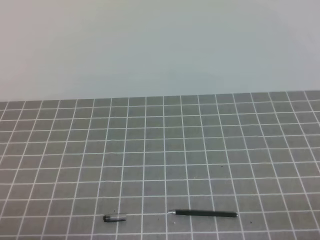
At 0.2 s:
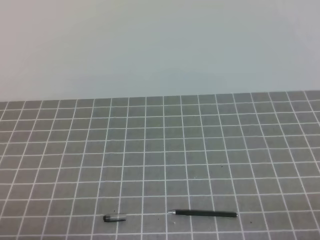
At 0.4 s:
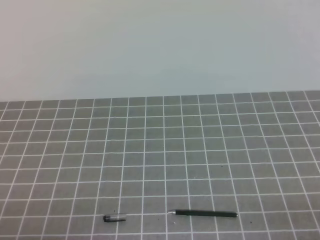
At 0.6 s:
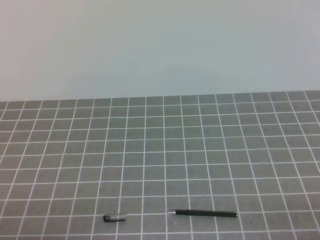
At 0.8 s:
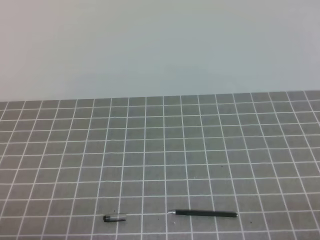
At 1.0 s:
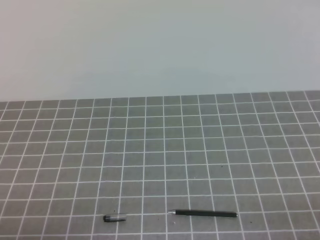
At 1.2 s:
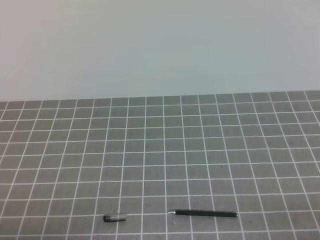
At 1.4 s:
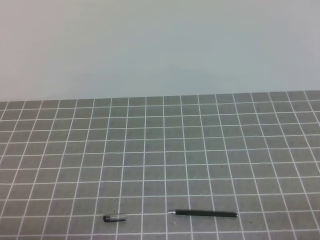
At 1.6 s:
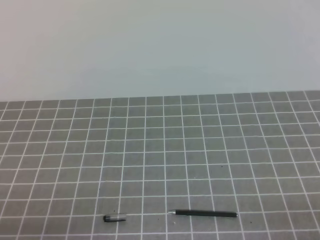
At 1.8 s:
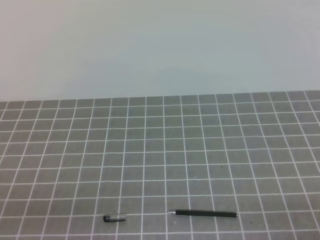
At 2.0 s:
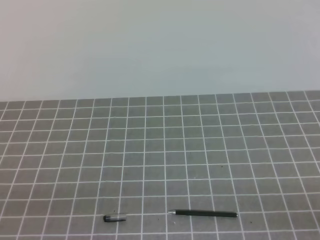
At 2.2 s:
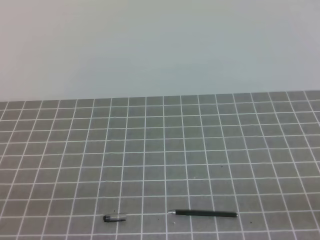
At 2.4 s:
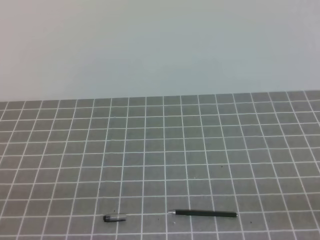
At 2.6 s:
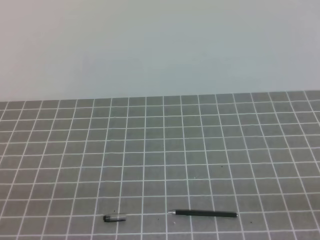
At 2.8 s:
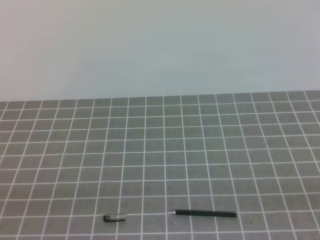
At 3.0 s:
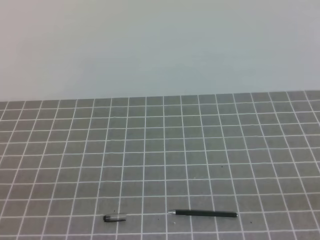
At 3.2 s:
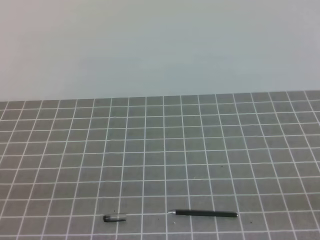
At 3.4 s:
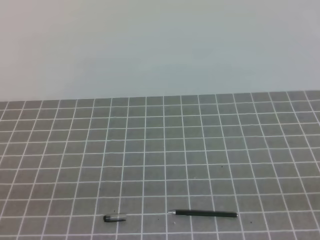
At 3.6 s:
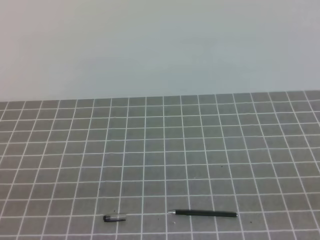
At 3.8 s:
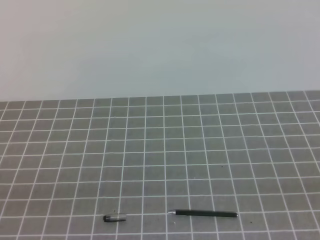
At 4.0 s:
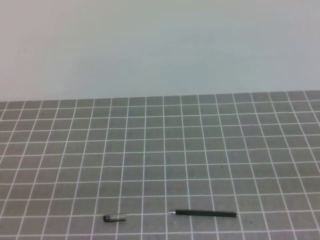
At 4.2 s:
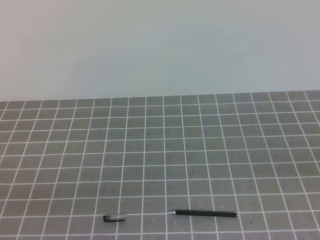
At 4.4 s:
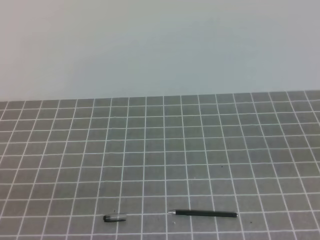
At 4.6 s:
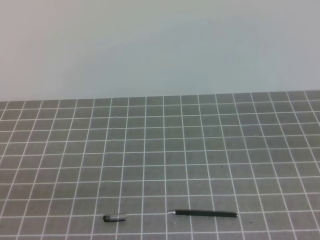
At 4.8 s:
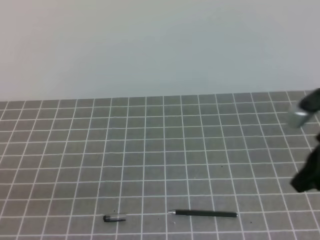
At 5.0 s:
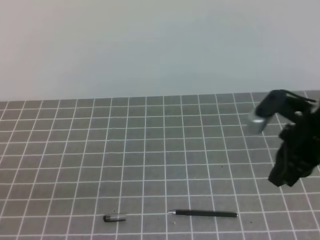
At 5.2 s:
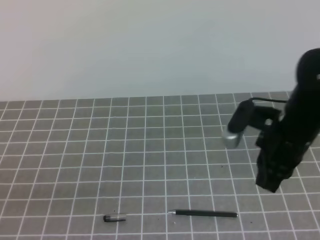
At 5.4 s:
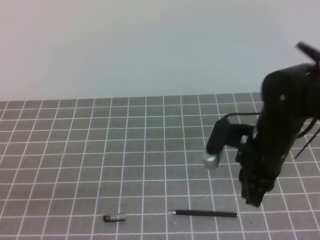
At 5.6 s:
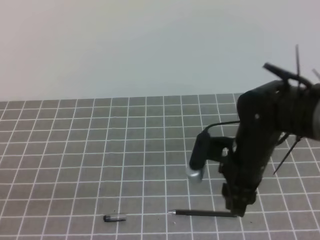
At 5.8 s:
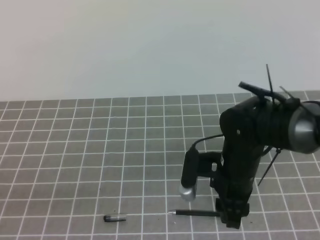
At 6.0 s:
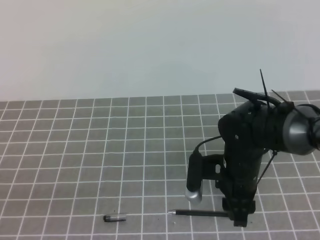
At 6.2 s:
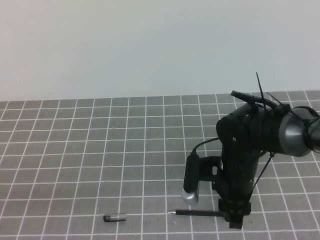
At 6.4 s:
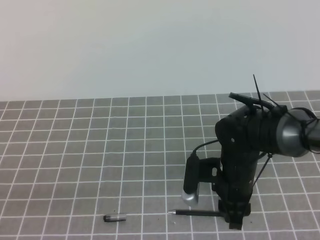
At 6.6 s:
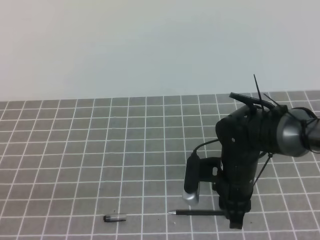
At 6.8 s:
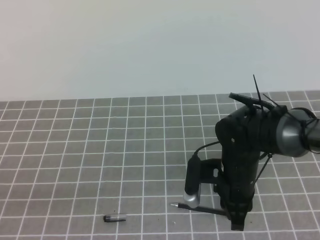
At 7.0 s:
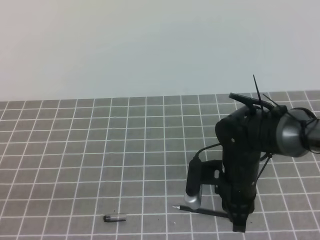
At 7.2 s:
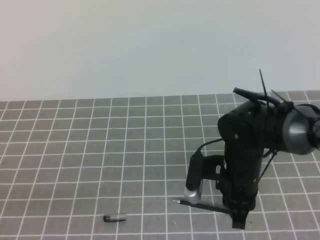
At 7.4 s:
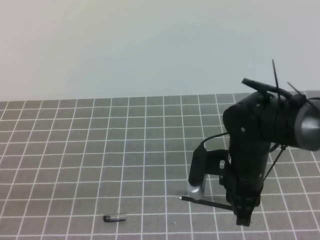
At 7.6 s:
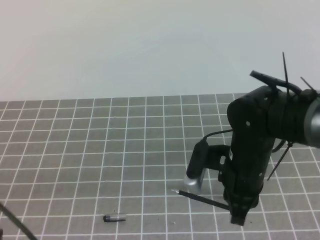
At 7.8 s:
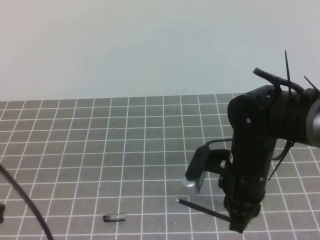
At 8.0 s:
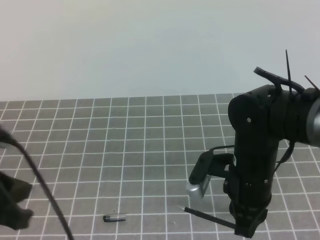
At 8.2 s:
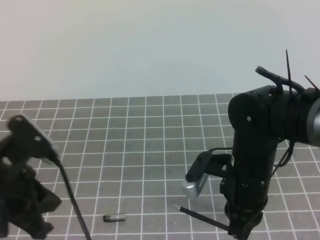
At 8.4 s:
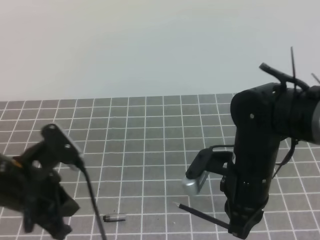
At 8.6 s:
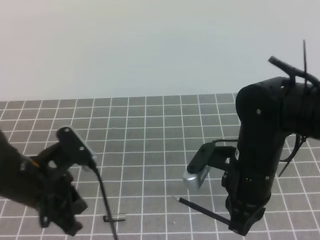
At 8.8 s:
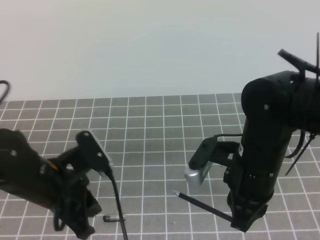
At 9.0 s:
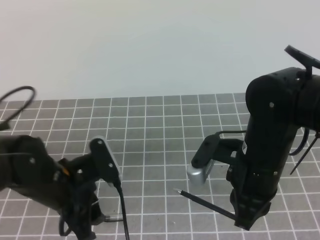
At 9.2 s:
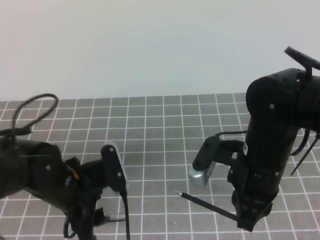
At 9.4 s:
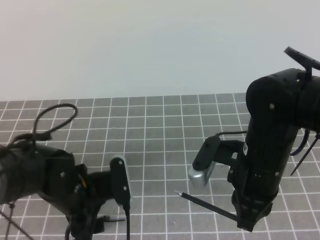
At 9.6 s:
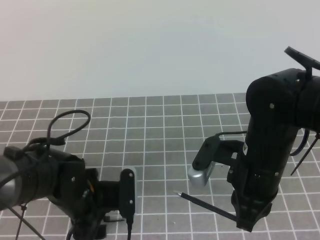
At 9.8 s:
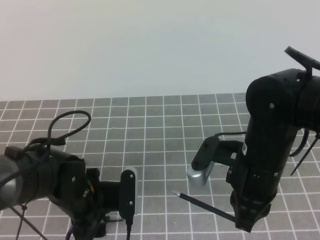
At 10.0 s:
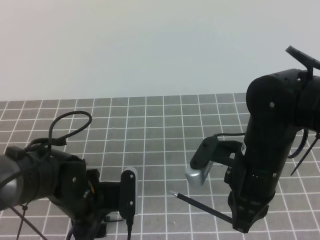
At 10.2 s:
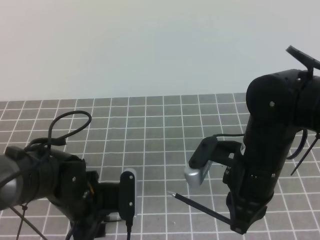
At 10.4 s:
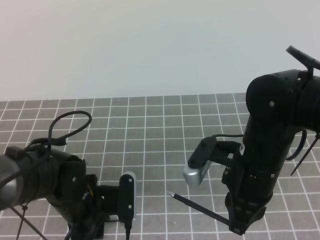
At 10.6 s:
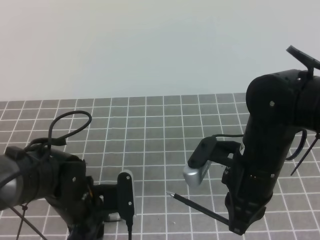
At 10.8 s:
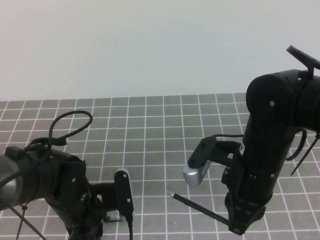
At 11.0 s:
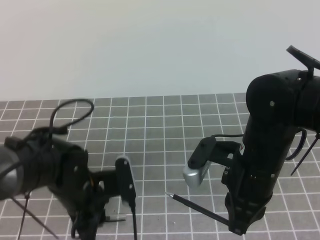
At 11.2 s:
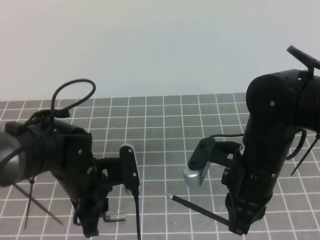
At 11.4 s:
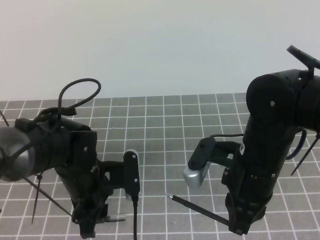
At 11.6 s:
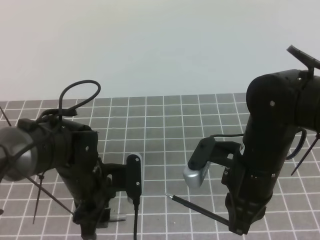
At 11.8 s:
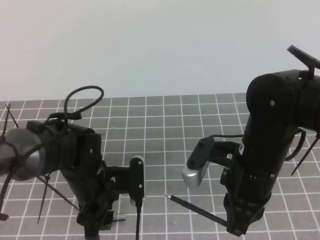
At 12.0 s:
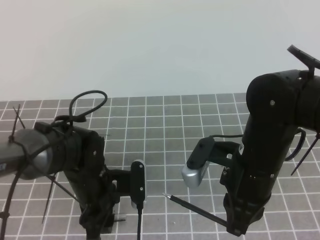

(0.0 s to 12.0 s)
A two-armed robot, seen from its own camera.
Task of the whole recording: on the grey tablecloth, hold the pen cap in one hand and the pen in the other, then cover the pen cap.
4.4 s - 6.0 s: The right gripper heads to the left, forward and downward, covering approximately 30 cm, and opens its fingers.
6.0 s - 7.6 s: The right gripper closes.
7.6 s - 9.0 s: The right gripper ends up roughly 5 cm from where it was. Meanwhile the left gripper heads forward, to the right and downward, covering some 20 cm, and opens up.
9.0 s - 10.4 s: The left gripper heads downward, covering about 5 cm.
10.4 s - 12.0 s: There are only small adjustments of the grippers.

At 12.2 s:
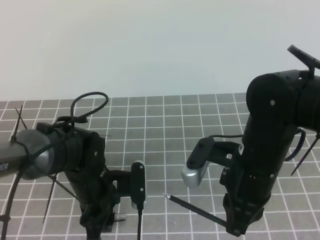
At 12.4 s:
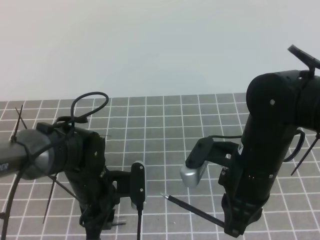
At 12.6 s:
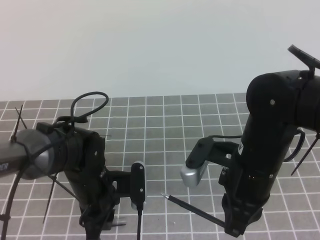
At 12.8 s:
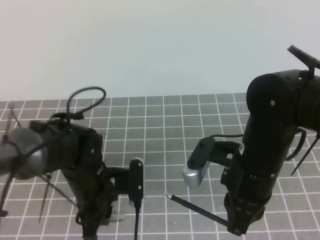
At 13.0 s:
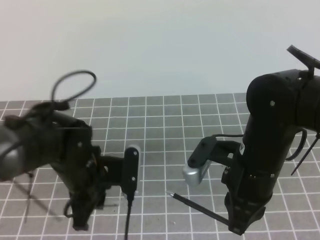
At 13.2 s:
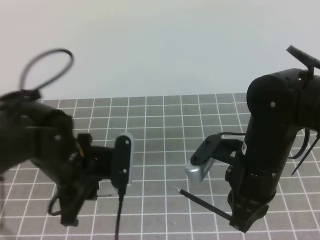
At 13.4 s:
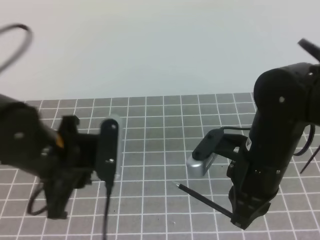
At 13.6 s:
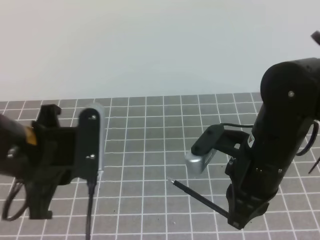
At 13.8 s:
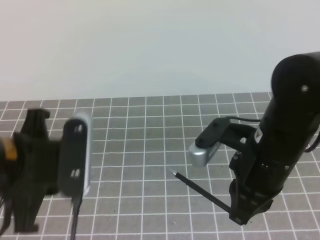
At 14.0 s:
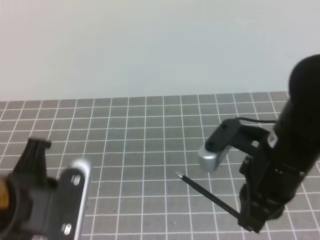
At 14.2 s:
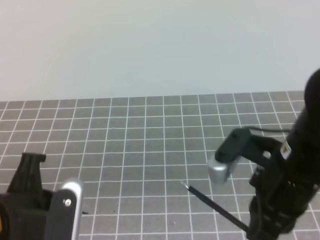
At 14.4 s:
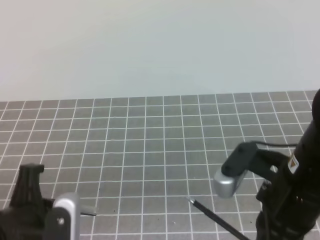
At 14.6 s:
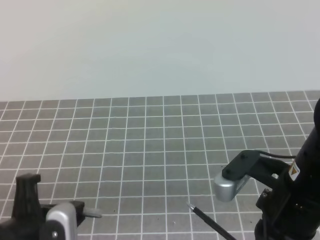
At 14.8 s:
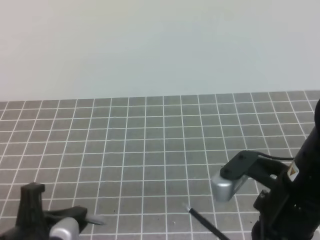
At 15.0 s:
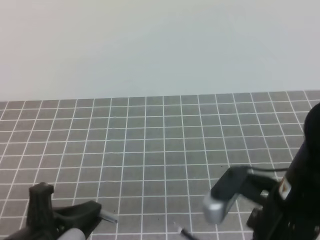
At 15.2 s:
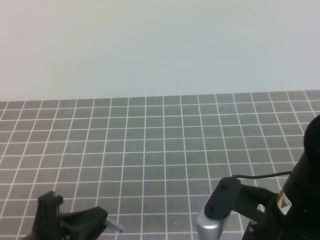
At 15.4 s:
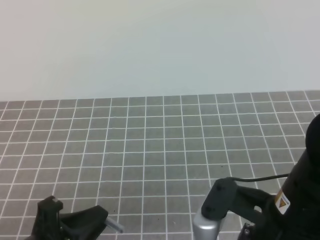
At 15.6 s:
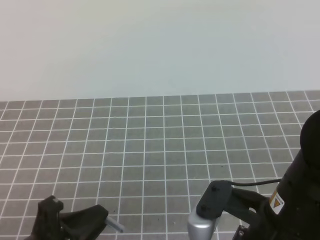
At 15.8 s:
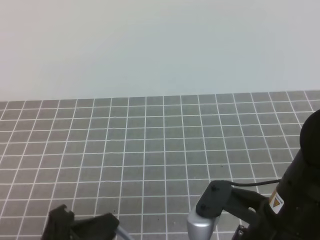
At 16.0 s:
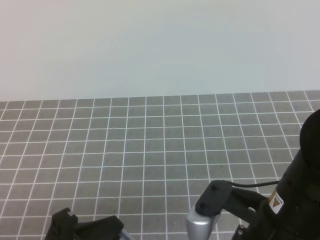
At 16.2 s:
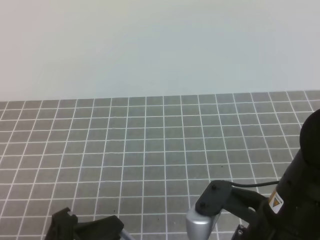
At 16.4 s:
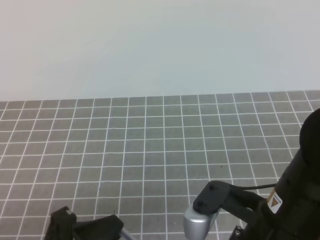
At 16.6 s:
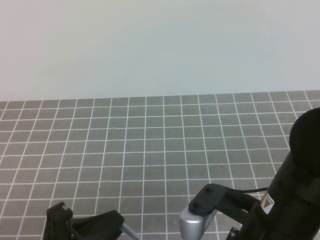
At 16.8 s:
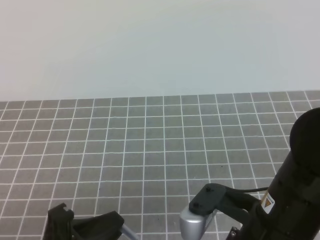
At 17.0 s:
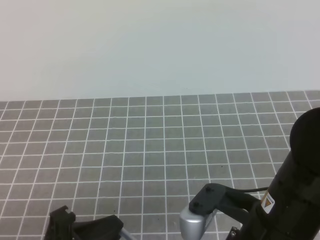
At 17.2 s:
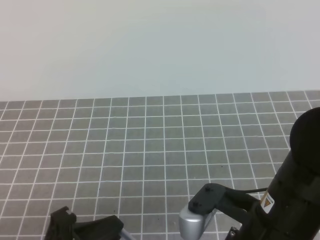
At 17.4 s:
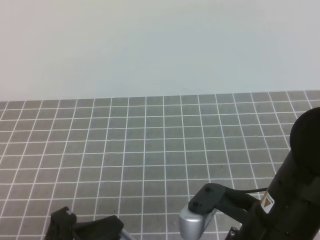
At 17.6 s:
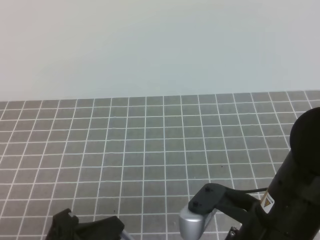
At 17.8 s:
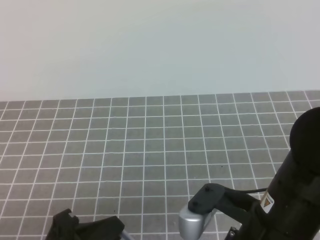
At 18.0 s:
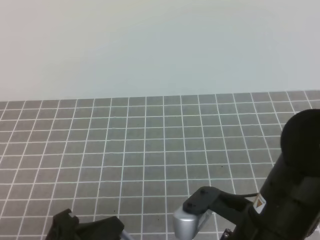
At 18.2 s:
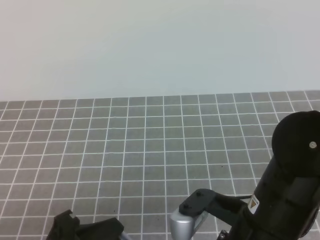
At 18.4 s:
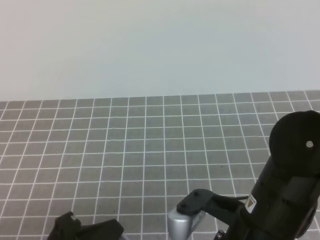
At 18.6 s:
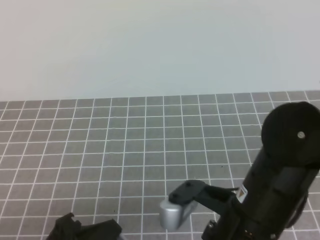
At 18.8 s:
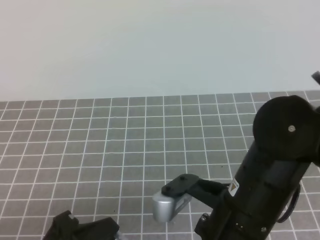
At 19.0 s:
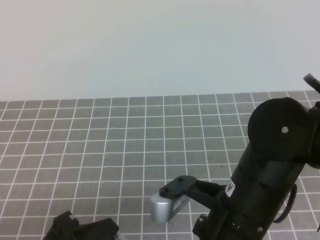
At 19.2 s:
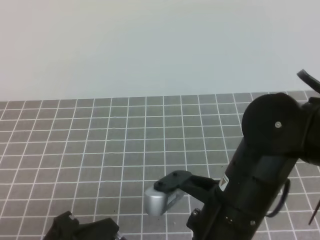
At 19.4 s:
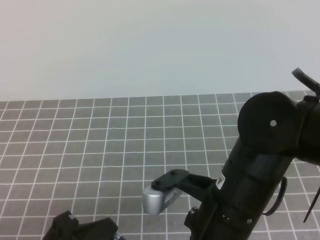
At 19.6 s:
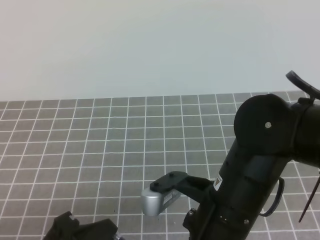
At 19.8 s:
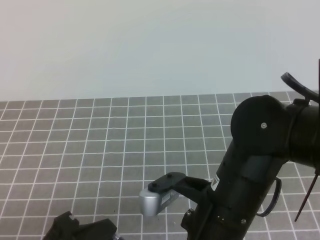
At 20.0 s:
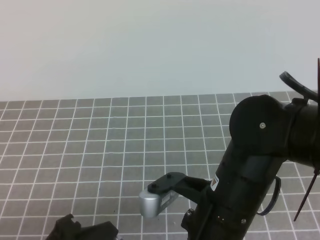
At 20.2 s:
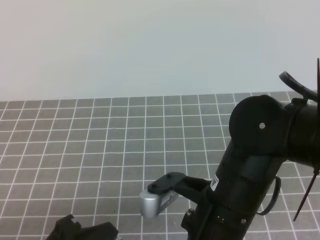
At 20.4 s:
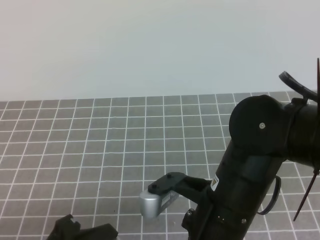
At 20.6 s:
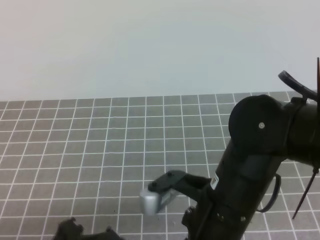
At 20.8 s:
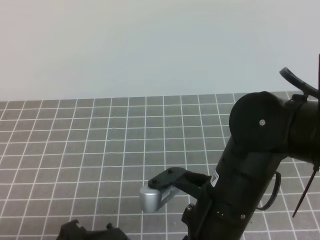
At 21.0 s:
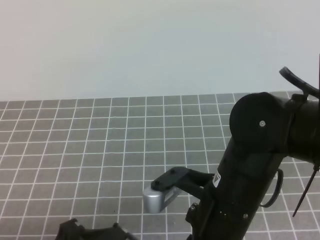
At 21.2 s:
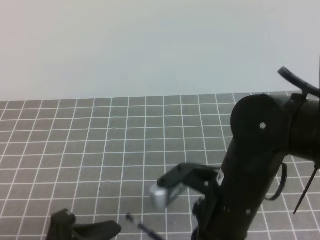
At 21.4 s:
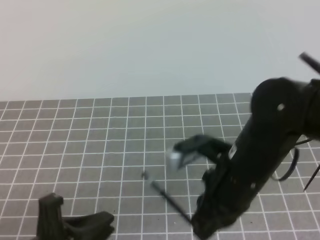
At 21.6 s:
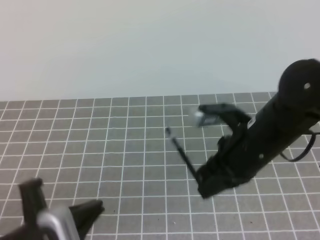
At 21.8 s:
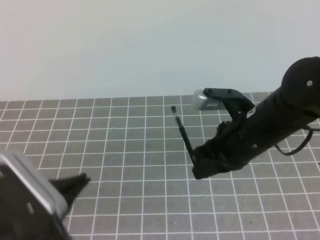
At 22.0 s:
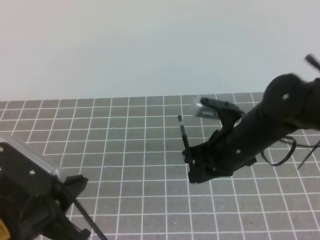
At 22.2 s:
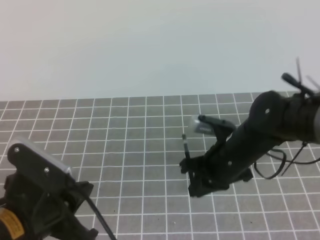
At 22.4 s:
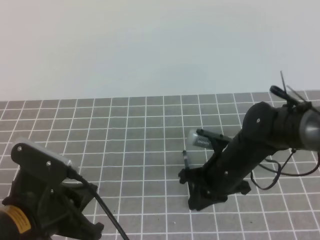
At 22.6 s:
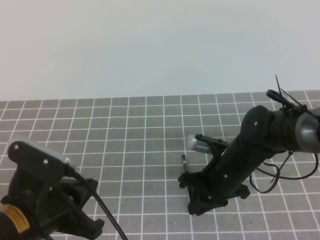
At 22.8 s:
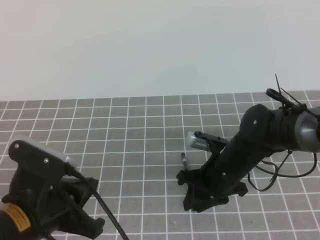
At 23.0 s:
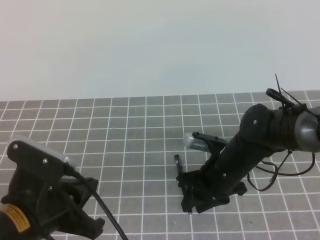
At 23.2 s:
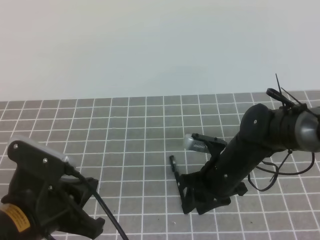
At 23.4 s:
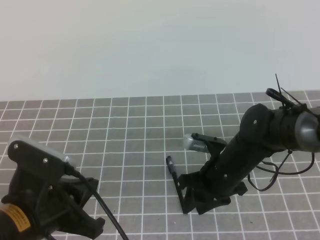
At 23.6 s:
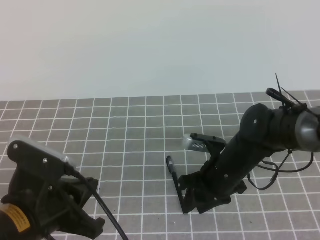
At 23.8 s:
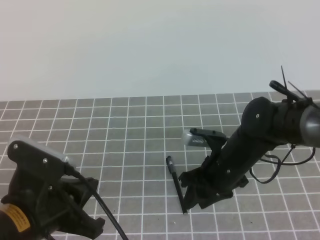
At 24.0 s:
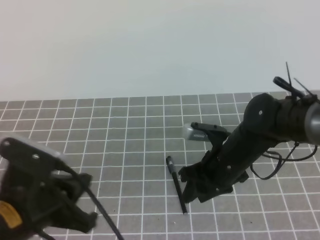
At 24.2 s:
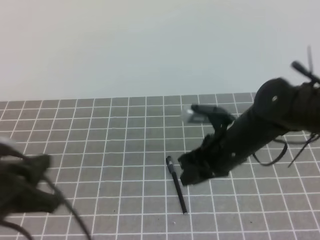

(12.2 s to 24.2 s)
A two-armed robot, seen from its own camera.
Task of the whole recording: on the grey tablecloth, hold the pen cap in one hand and the pen in the other, then cover the pen cap.
12.2 s - 13.8 s: The left gripper heads upward and backward, covering approximately 20 cm, and closes.
13.8 s - 15.2 s: The left gripper goes some 10 cm downward and backward, while the right gripper goes approximately 10 cm backward.
15.2 s - 18.2 s: The grippers make only small movements.
18.2 s - 19.8 s: There are only small adjustments of the grippers.
19.8 s - 21.2 s: The left gripper opens up.
21.2 s - 22.6 s: The right gripper shifts approximately 15 cm forward and downward. Meanwhile the left gripper heads forward, covering some 5 cm, and closes its fingers.
22.6 s - 24.2 s: The right gripper opens its fingers.
